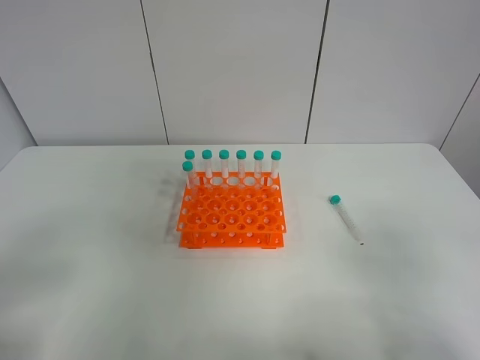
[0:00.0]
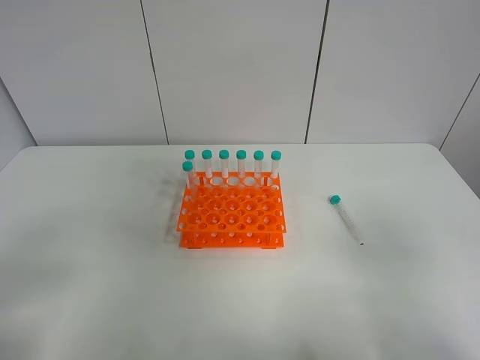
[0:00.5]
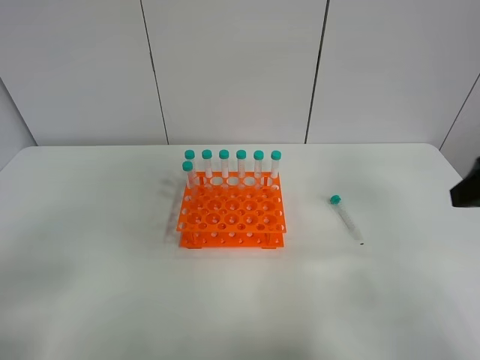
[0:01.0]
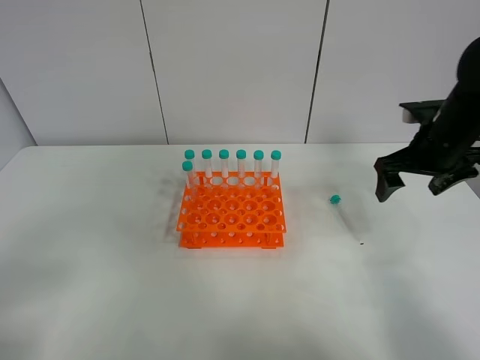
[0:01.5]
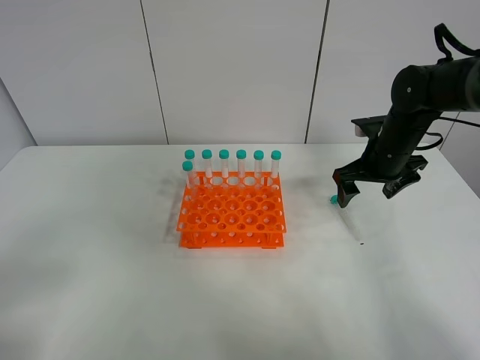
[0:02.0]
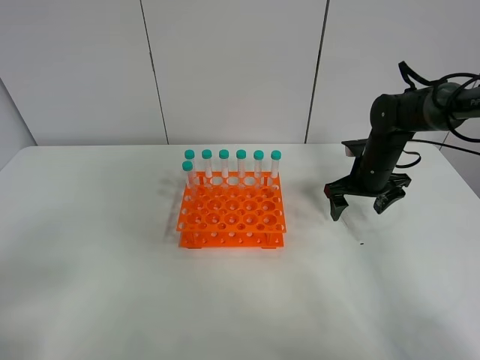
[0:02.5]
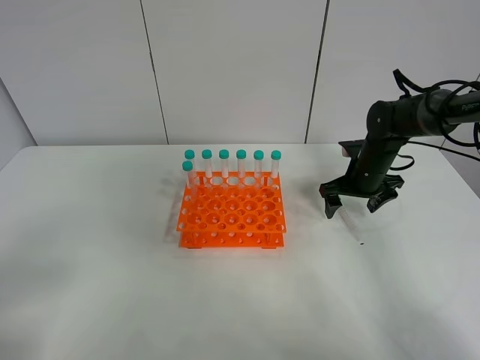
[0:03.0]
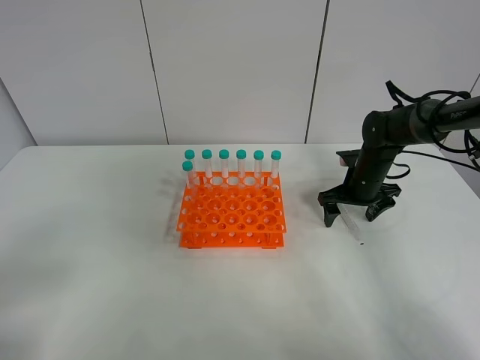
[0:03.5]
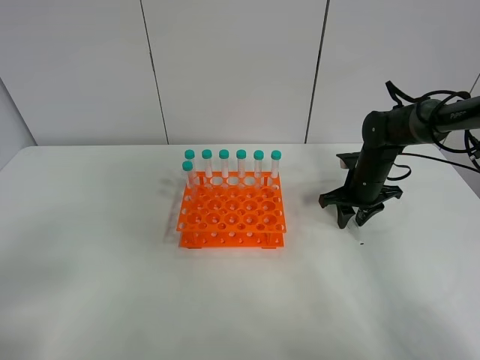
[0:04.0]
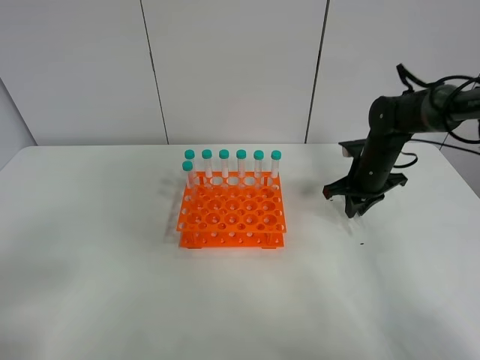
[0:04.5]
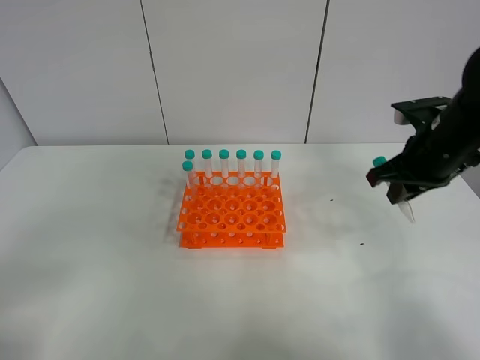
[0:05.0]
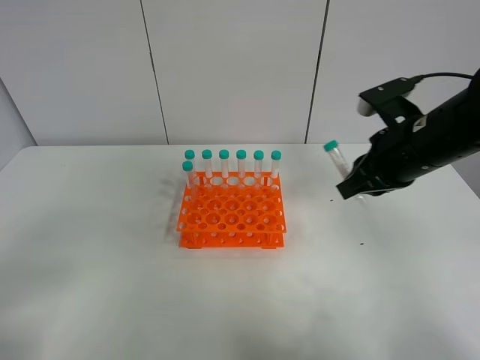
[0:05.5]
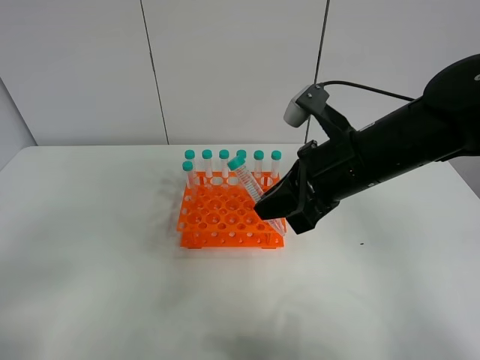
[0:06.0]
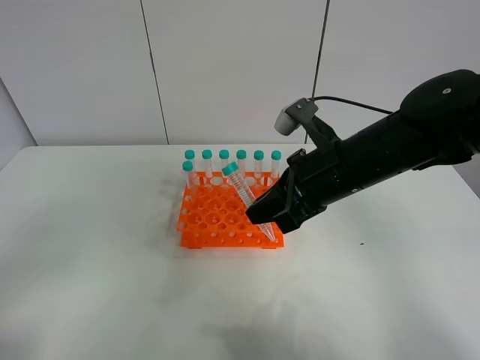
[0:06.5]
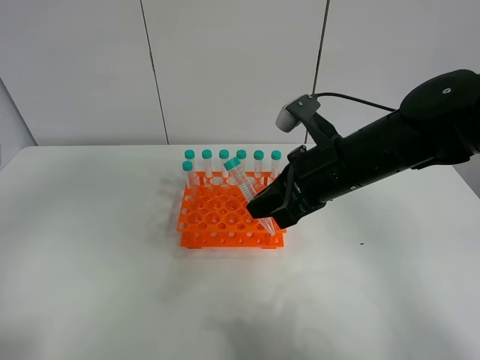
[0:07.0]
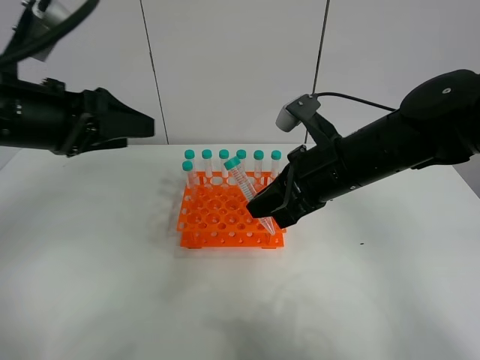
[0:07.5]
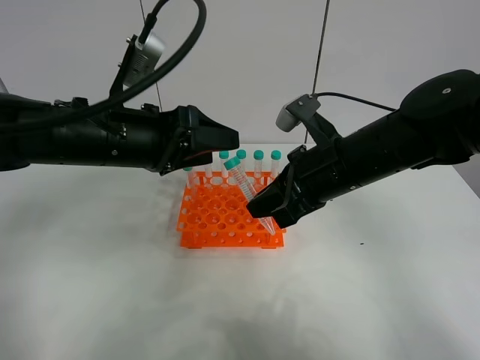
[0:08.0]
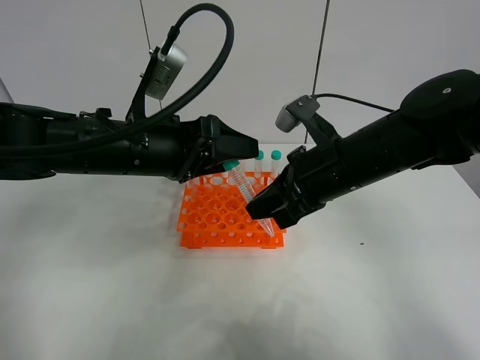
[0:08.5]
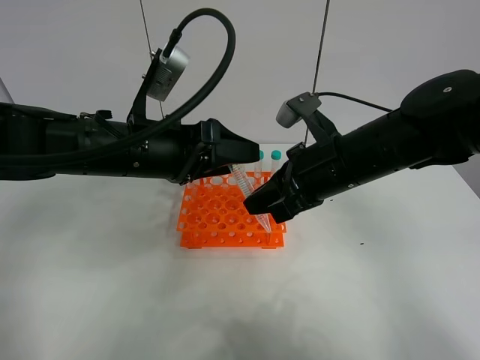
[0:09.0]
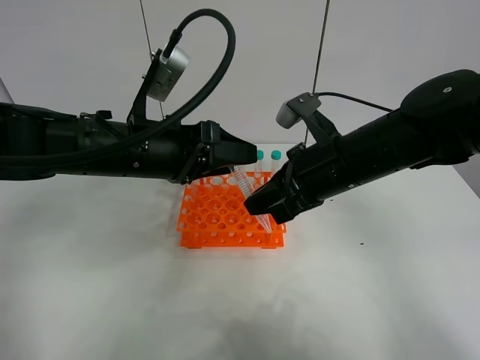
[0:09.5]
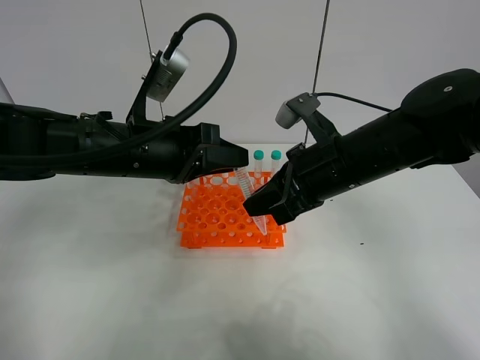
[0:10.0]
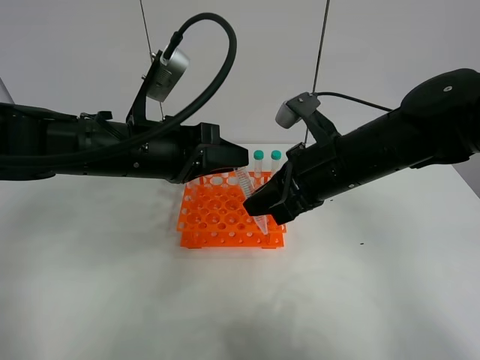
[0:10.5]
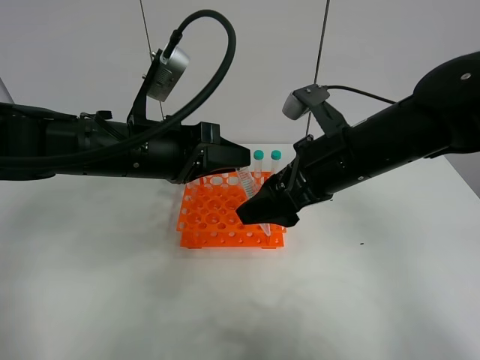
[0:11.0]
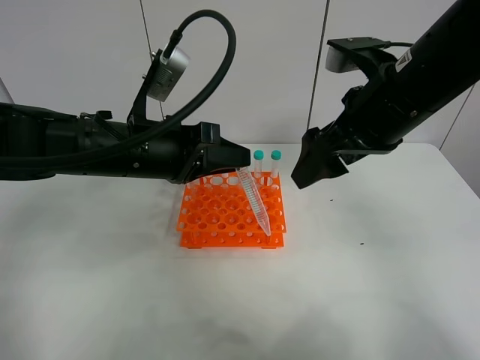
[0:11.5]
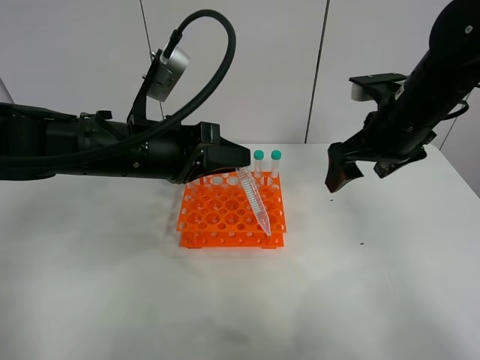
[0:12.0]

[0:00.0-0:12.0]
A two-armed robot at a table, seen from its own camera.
Task of the whole recording: Put the test tube on the table back onto the test tube rack.
Step, 0:00.0 to 0:04.0: Pick up the test tube with the right gripper.
Step, 0:04.5 to 0:10.5: Move the test tube from the right gripper to the left gripper.
0:00.0 to 0:02.0: The right gripper heads forward, covering roughly 40 cm.
0:02.0 to 0:04.0: The right gripper moves downward, roughly 10 cm, and closes up.
0:04.0 to 0:06.0: The right gripper shifts about 25 cm backward, upward and to the left.
0:06.0 to 0:08.0: The left gripper moves forward and to the right, about 30 cm.
0:08.0 to 0:10.0: The left gripper closes its fingers.
0:10.0 to 0:12.0: The right gripper moves to the right and forward, approximately 10 cm, and opens.

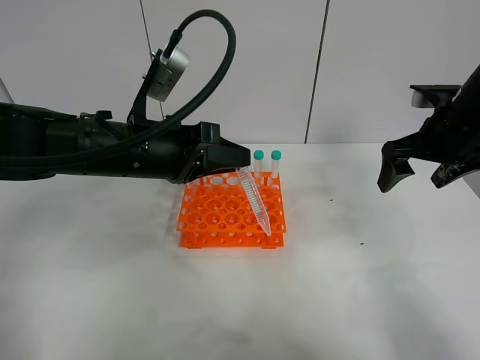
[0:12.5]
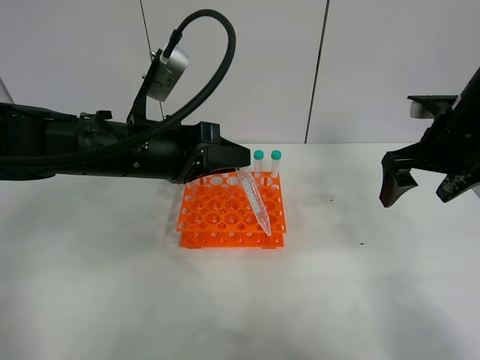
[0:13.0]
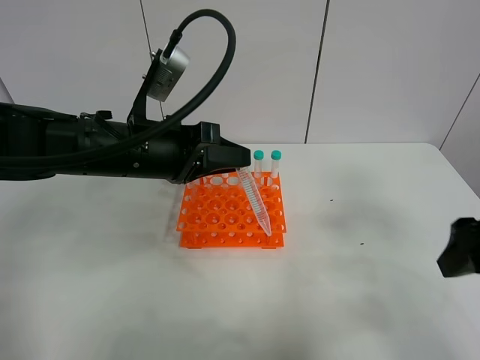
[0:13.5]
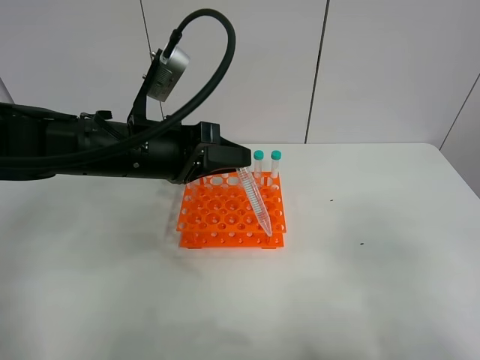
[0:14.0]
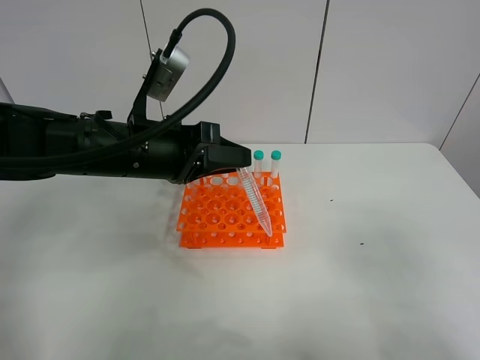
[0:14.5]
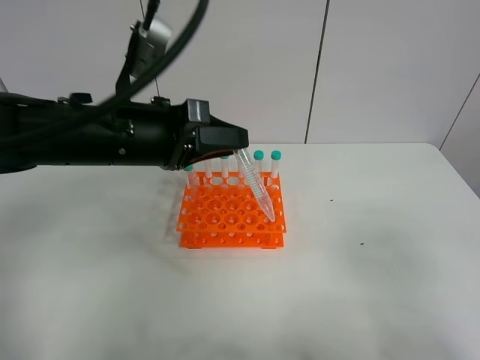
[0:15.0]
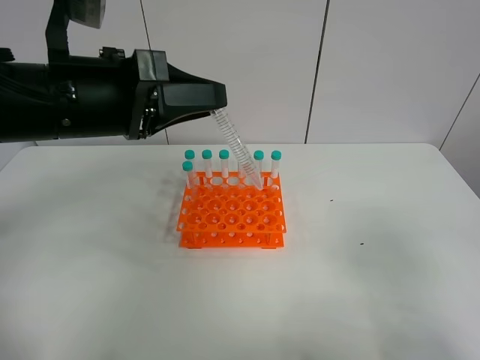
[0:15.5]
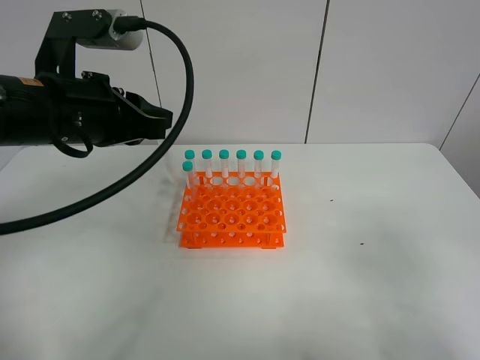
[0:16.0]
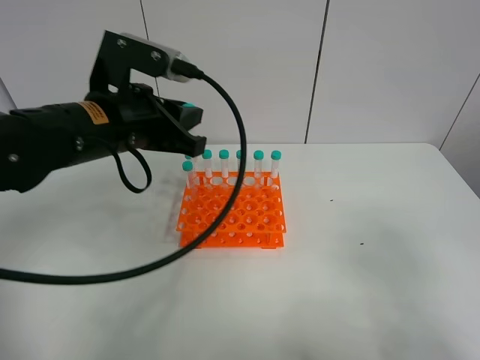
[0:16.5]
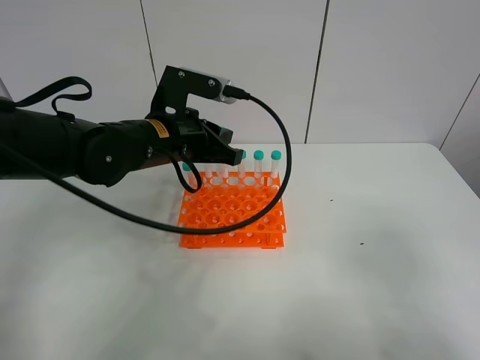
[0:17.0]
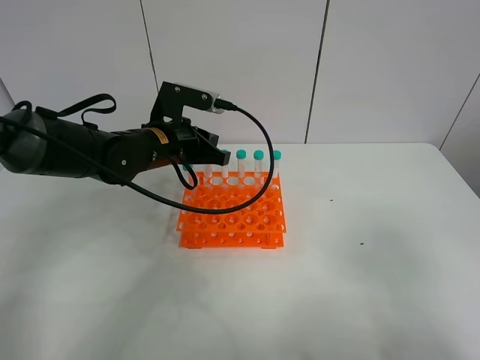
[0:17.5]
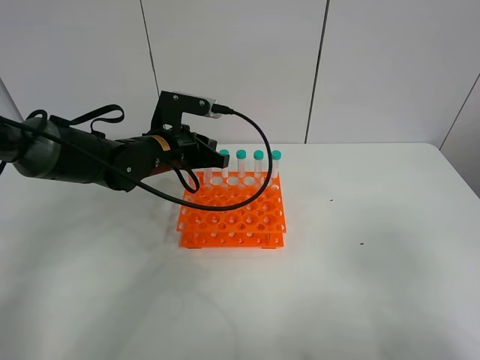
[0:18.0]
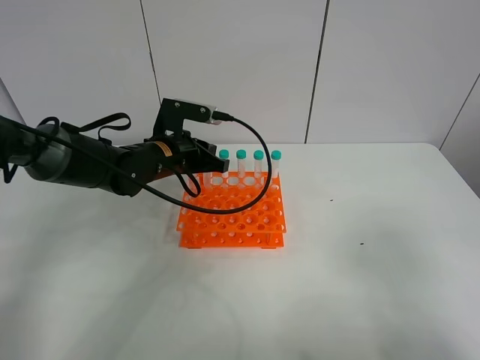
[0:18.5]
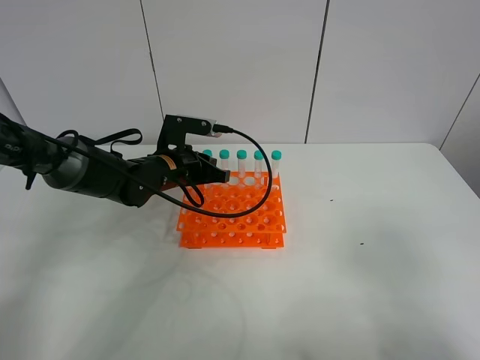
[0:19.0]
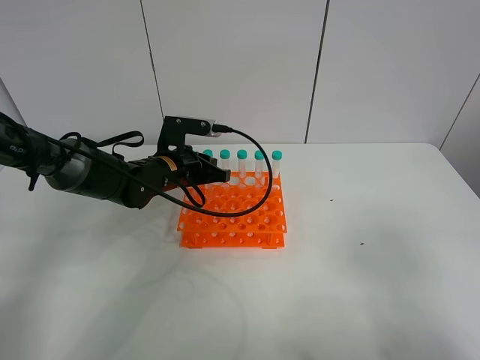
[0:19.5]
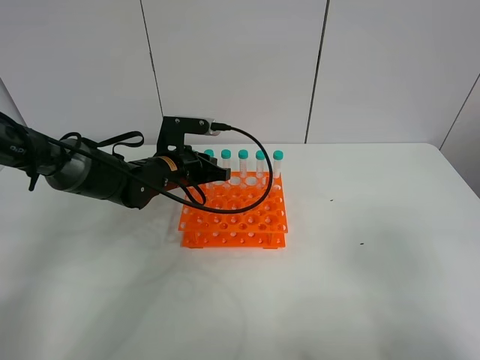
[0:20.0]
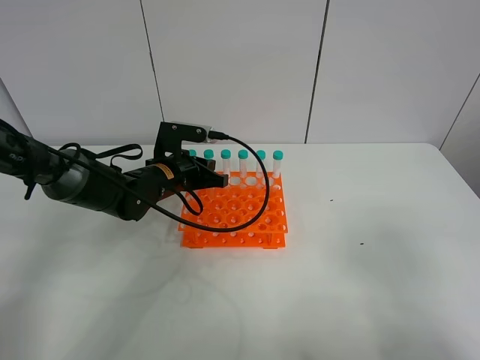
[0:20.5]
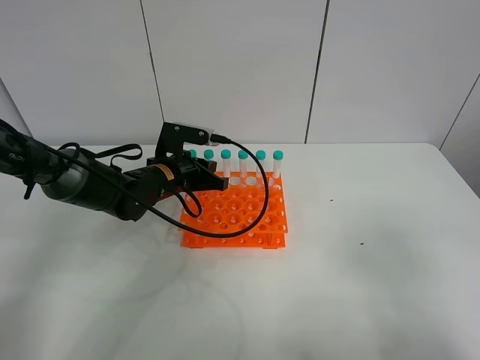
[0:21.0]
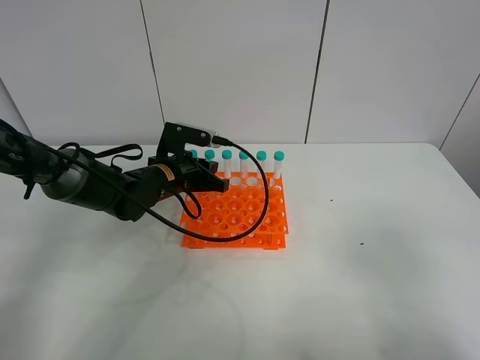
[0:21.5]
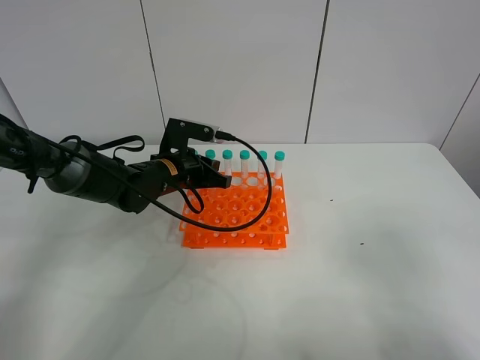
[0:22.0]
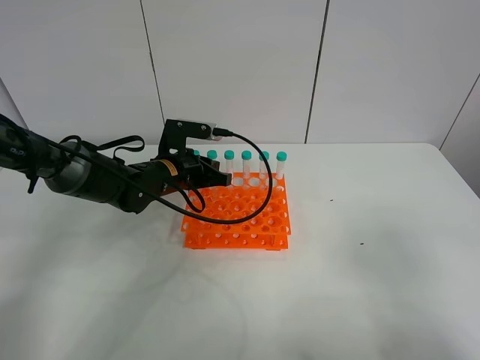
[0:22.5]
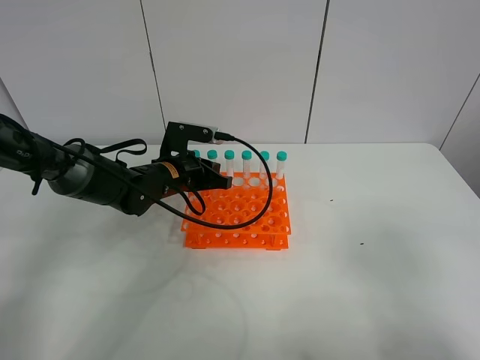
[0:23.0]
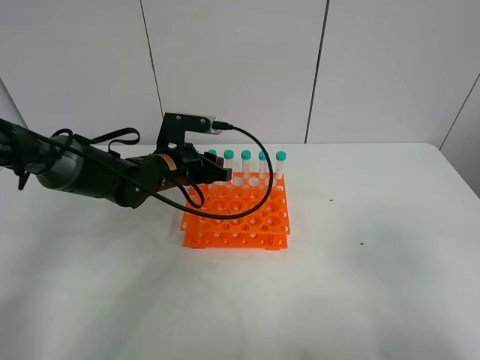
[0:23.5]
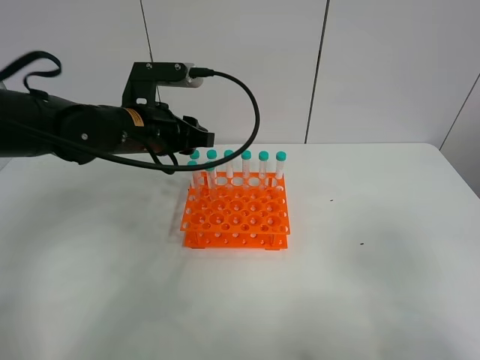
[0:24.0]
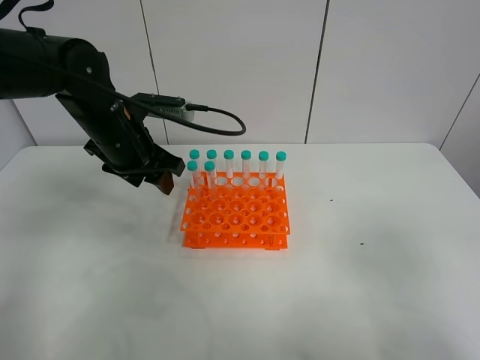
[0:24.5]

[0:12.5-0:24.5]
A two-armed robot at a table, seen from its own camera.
Task of the whole recording: Put the test tube on the table back onto the test tube rack.
Step, 0:12.5 to 0:23.0: Place the test tube on the test tube rack with the left gripper.
0:12.5 to 0:14.5: The right gripper travels backward by some 30 cm.
0:16.5 to 0:18.5: The left gripper goes roughly 15 cm downward and forward.
0:18.5 to 0:22.5: There are only small adjustments of the grippers.
0:22.5 to 0:24.5: The left gripper travels upward and to the left by roughly 10 cm, and opens up.

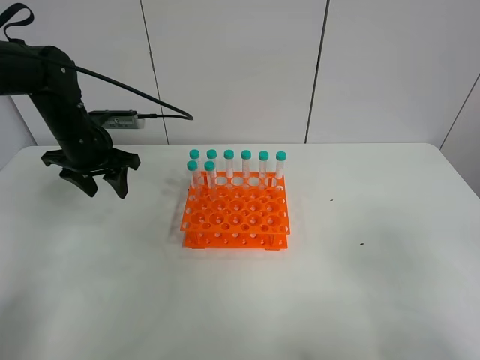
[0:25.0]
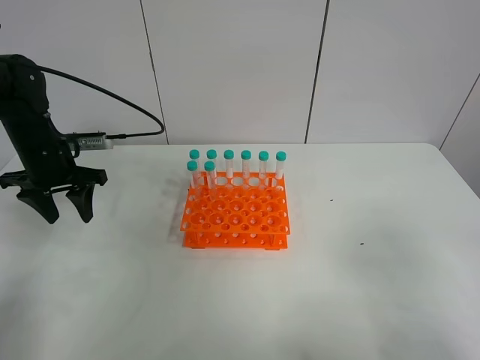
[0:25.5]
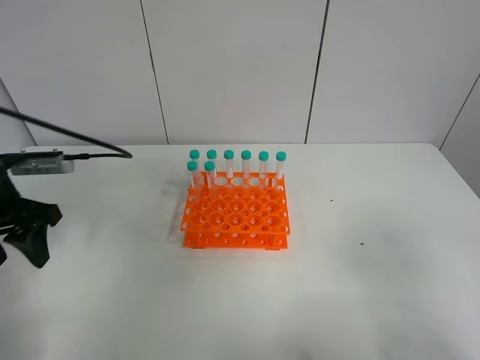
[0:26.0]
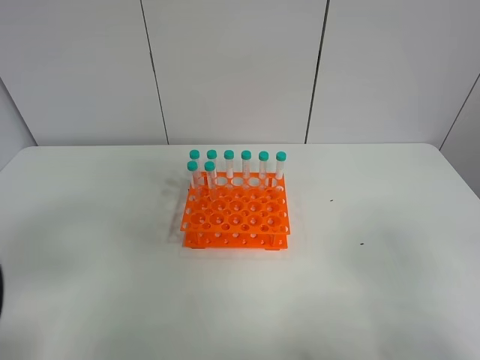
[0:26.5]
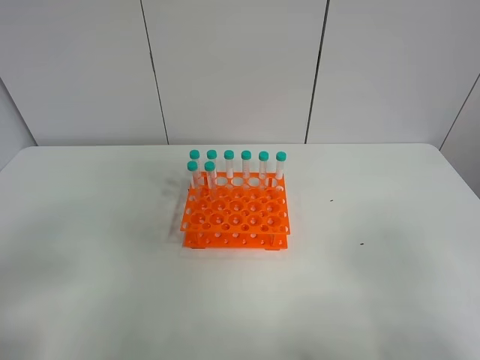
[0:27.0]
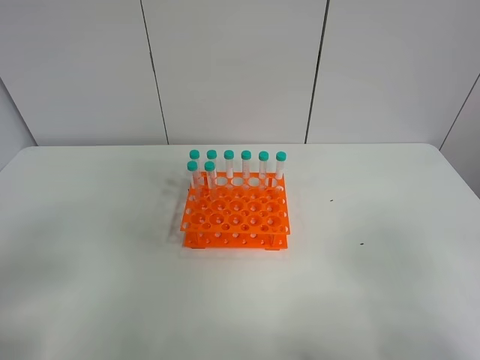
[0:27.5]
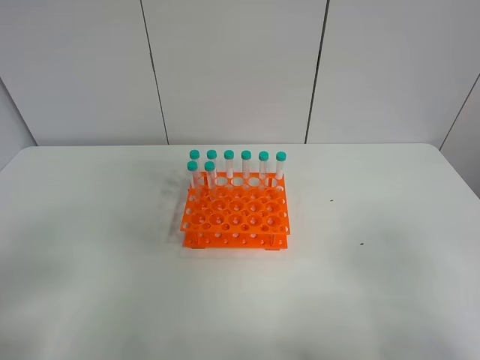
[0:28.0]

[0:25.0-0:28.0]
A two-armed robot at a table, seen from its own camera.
Task of the whole recording: Put the test tube on the table back onto the test tube rack.
0:25.0 to 0:26.5: The left gripper shifts roughly 35 cm backward.
